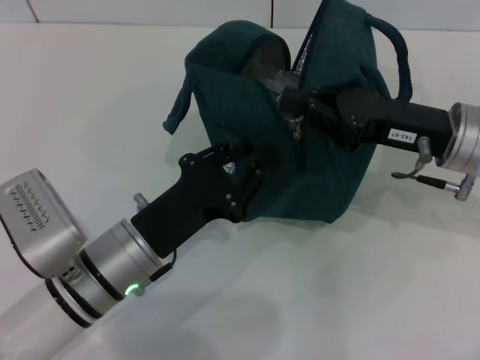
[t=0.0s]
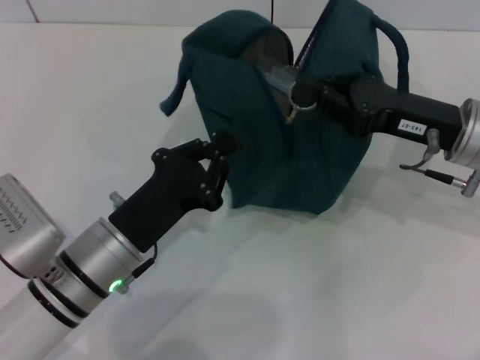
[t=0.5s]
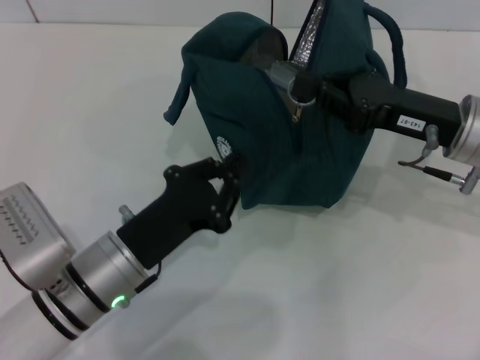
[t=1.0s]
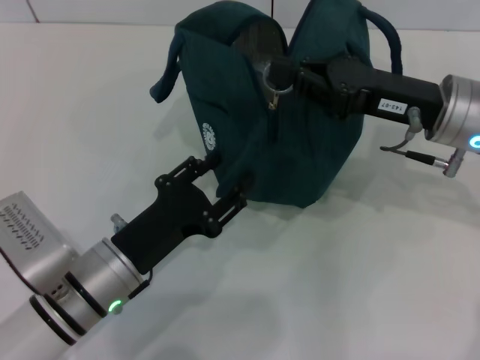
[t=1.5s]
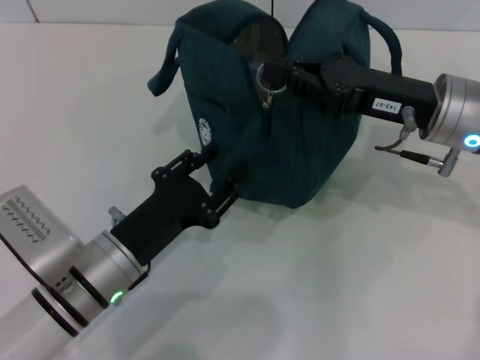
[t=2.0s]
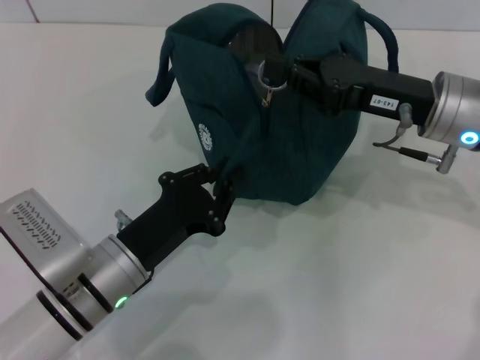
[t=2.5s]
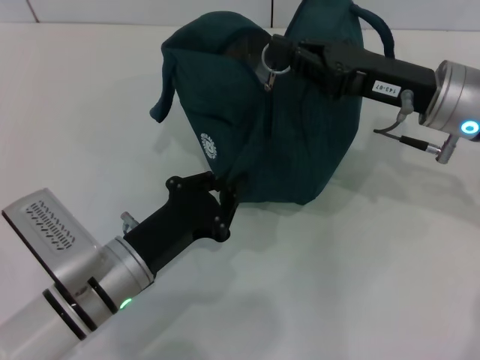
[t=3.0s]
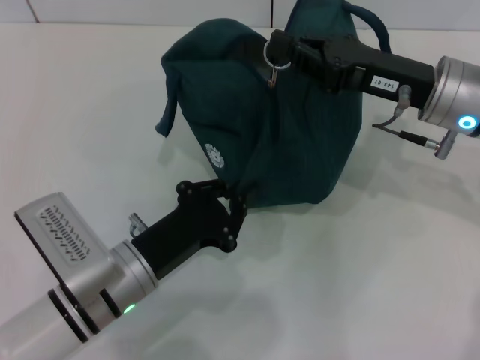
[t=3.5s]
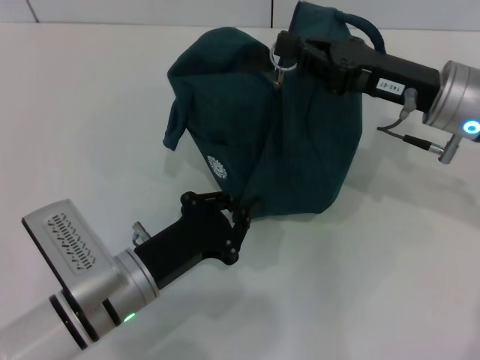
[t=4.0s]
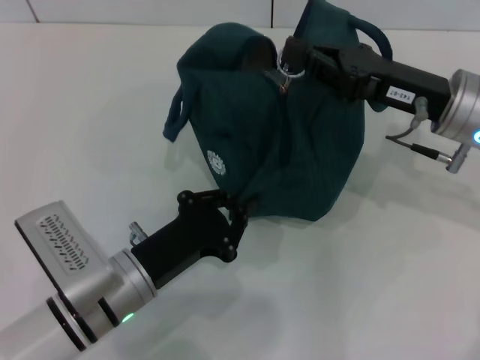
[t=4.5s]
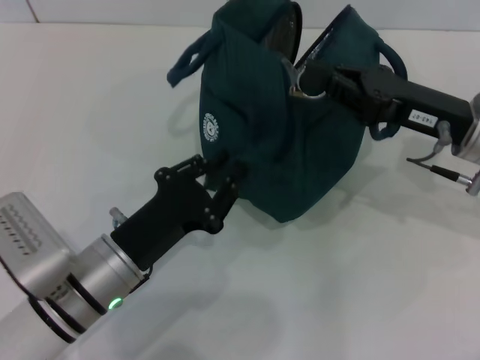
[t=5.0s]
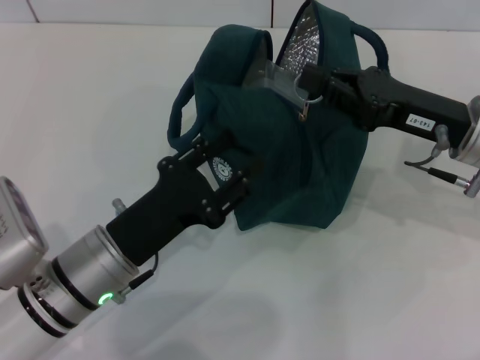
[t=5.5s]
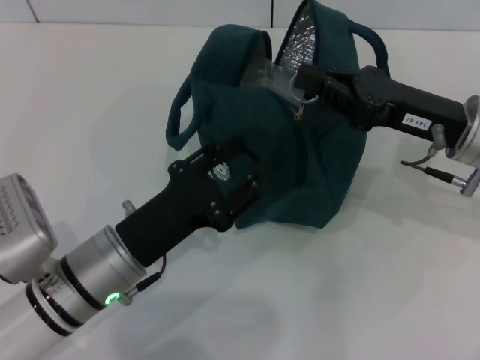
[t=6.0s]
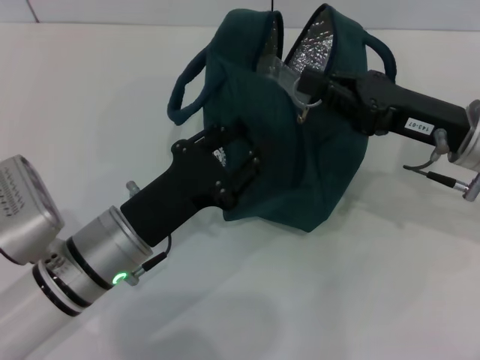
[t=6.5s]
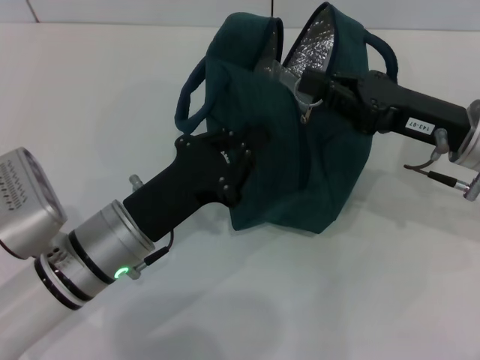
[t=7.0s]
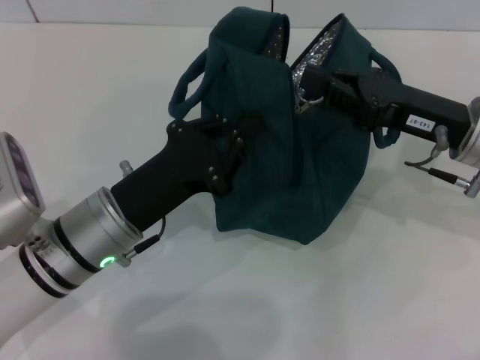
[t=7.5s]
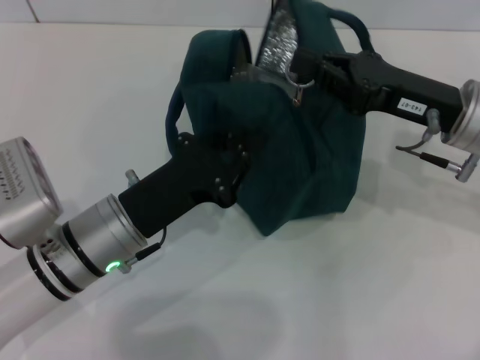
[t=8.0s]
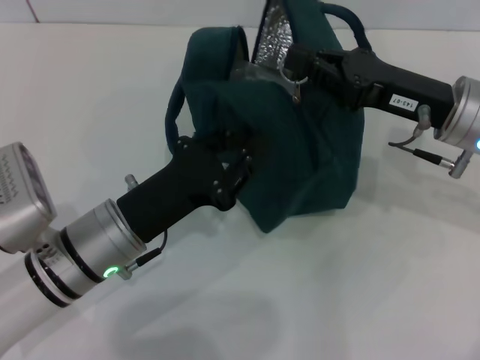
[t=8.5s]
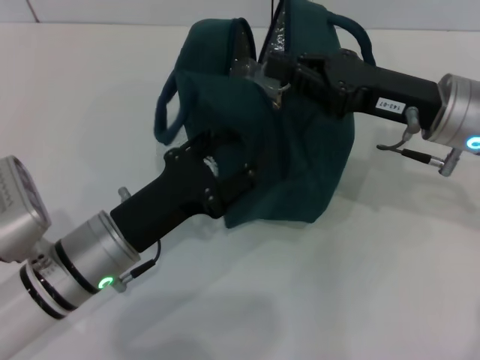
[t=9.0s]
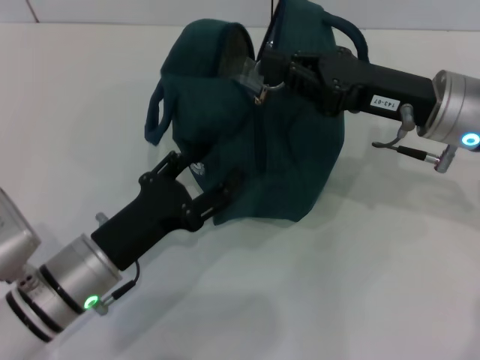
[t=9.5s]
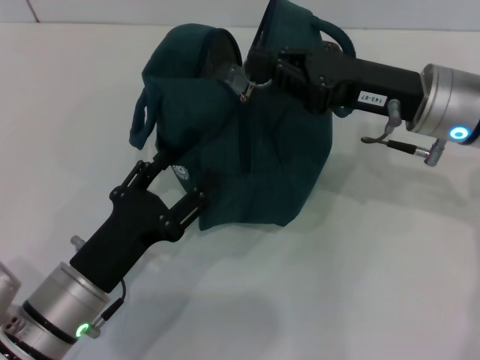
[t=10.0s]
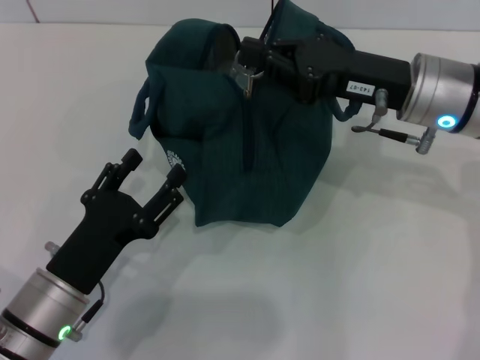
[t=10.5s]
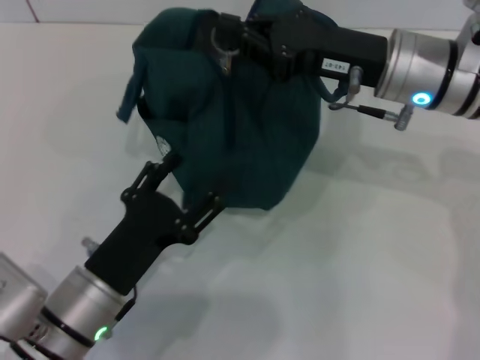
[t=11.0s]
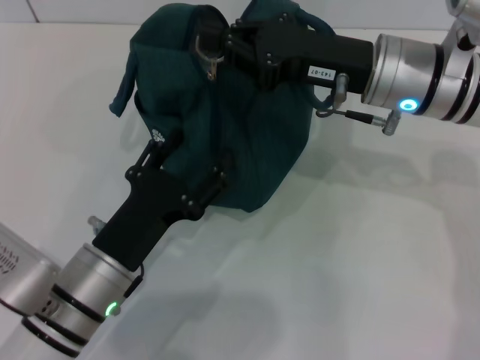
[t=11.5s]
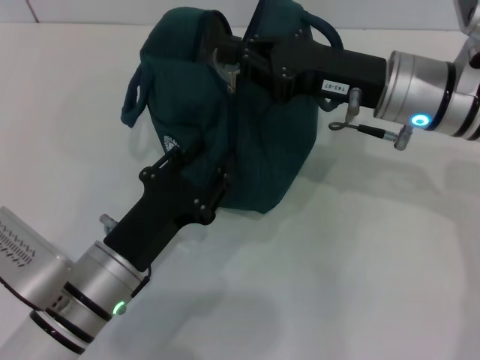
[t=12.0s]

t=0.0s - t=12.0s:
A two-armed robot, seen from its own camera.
t=0.0s - t=2.0s: The left gripper closes, then opens again.
t=2.0s - t=4.0s: The left gripper closes.
t=4.0s - t=6.0s: The left gripper opens its fingers.
t=6.0s - t=8.0s: The left gripper closes.
t=8.0s - t=10.0s: The left gripper shifts about 5 cm backward, and opens.

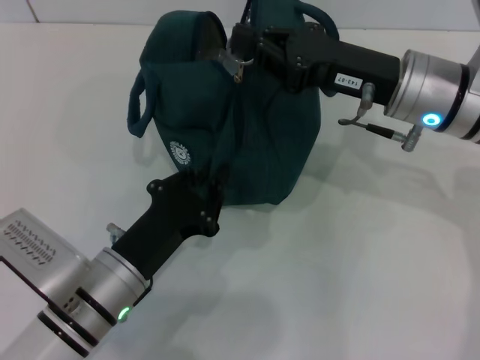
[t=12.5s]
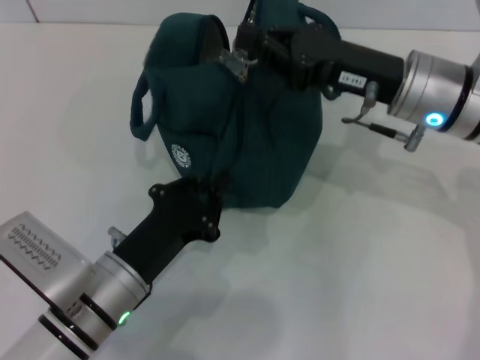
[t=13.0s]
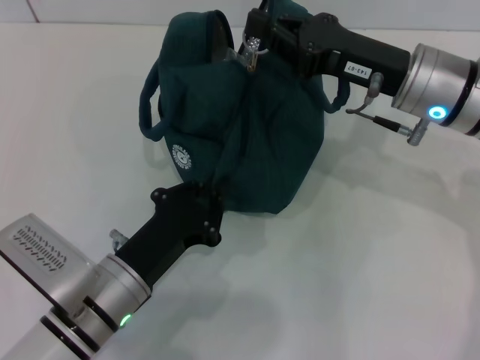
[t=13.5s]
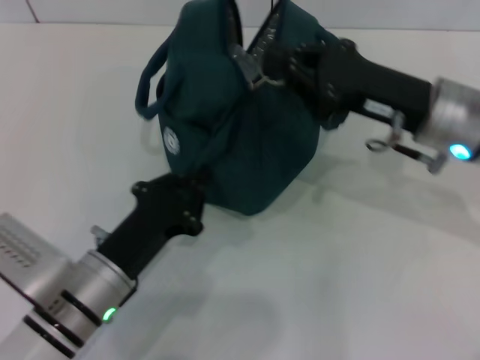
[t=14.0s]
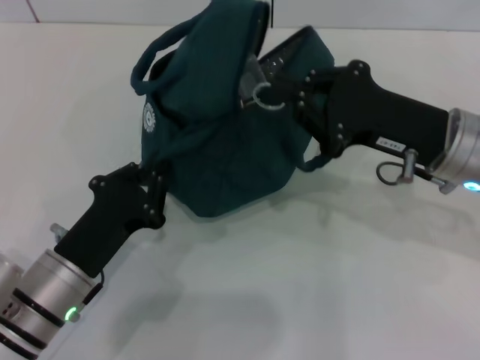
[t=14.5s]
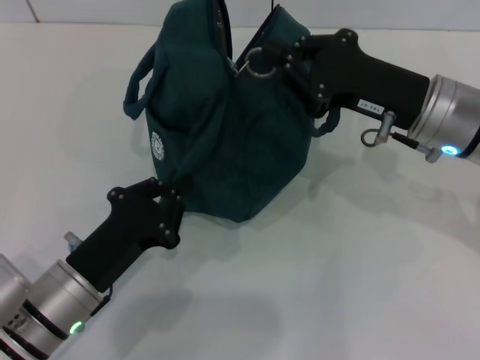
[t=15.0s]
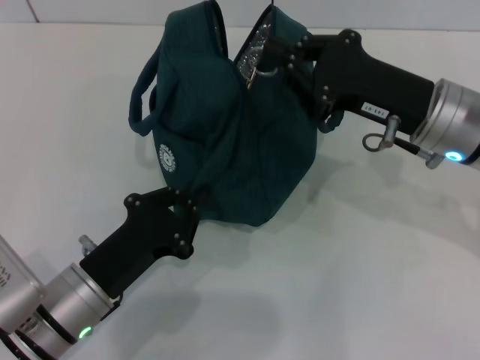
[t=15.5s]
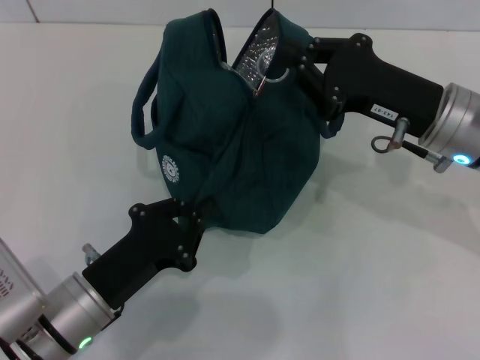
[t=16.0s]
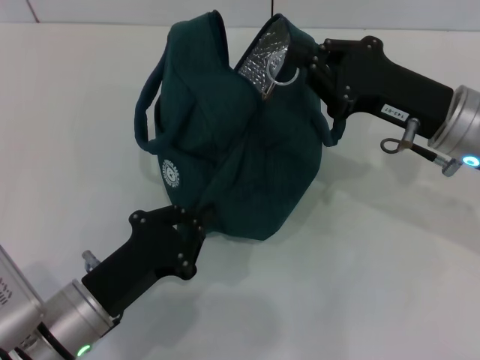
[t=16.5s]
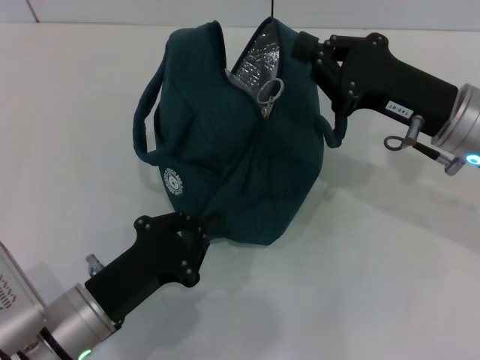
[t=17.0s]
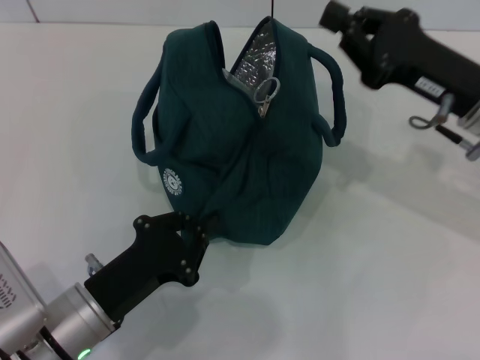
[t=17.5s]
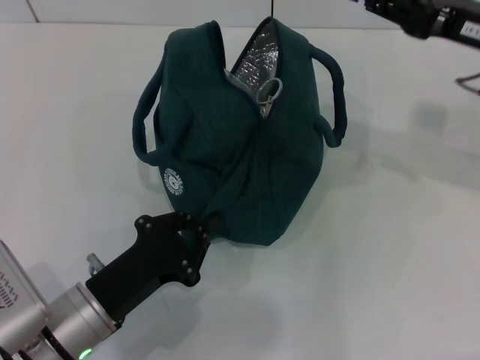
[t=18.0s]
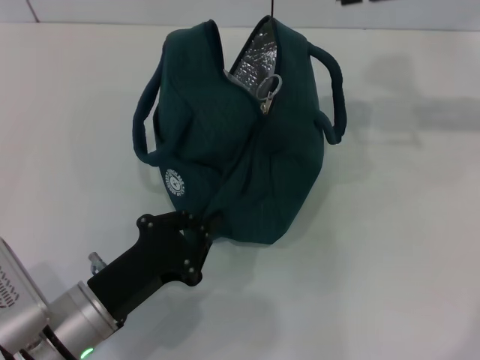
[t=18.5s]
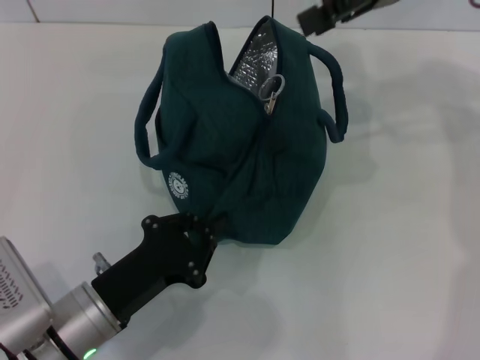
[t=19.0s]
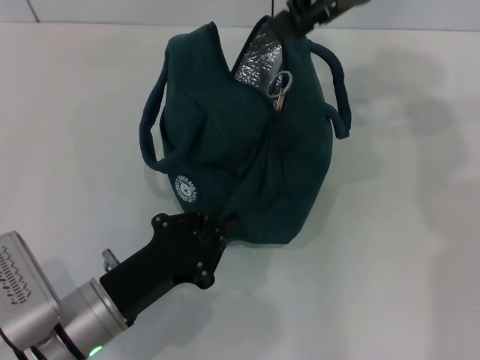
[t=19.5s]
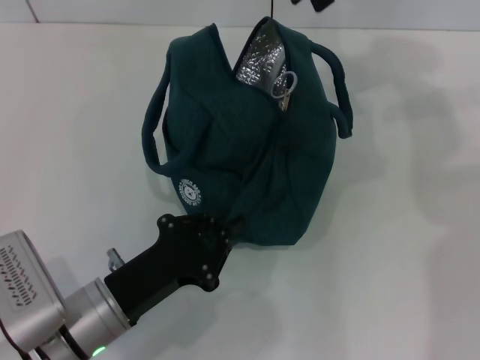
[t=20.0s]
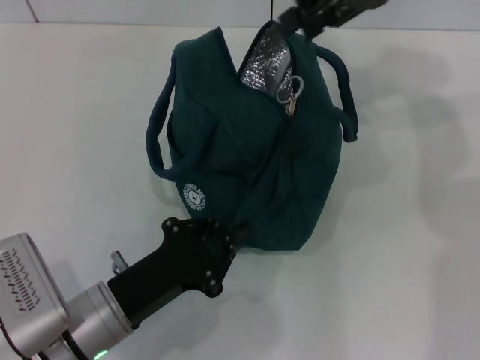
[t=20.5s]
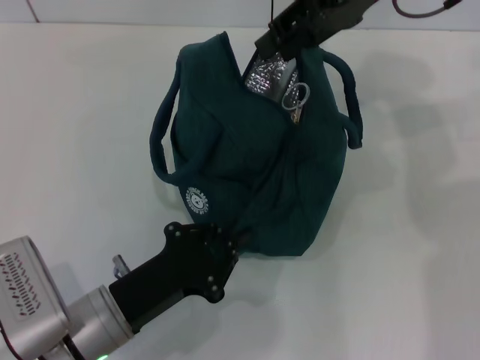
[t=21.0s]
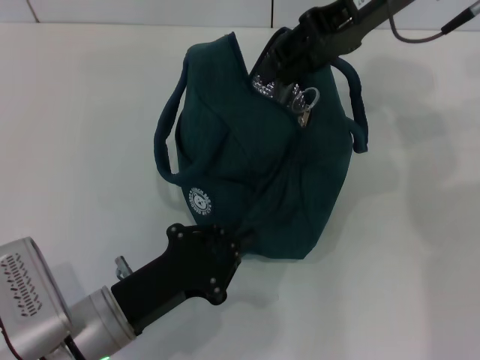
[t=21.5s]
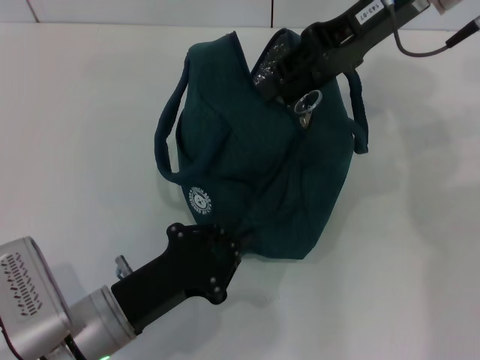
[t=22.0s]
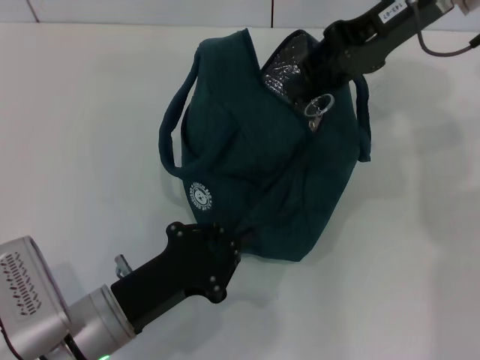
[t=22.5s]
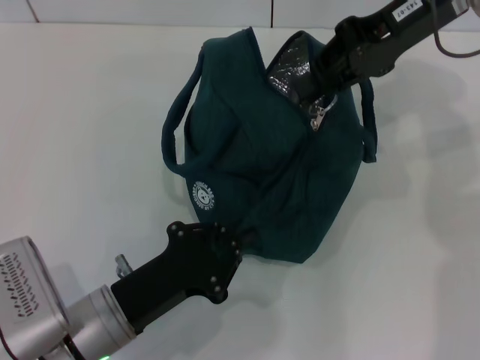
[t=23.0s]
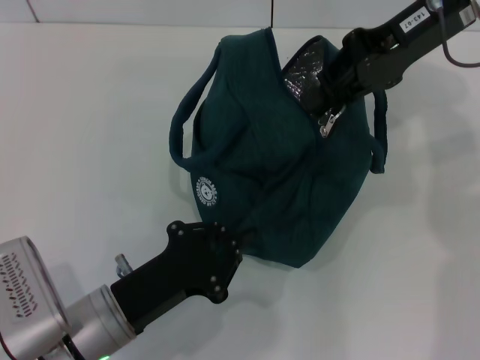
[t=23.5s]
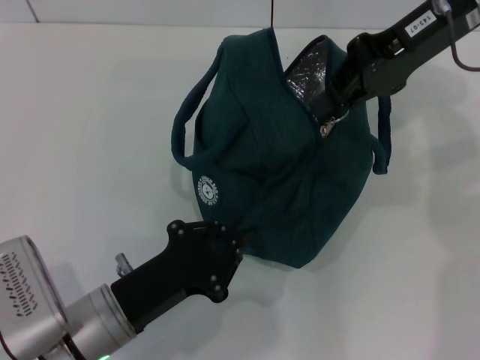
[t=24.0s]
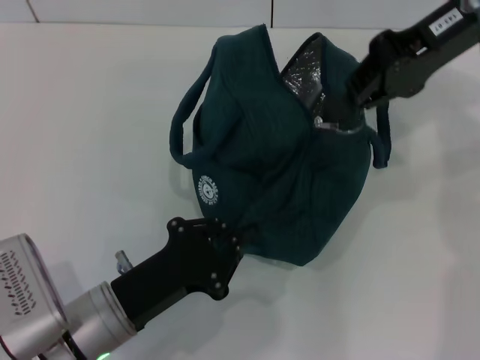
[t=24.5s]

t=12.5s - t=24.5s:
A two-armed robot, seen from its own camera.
t=12.5s - t=14.5s: The right gripper changes place by about 5 cm.
t=16.5s - t=18.5s: The right gripper shifts roughly 15 cm upward and forward, and opens.
t=18.5s - t=20.5s: The right gripper is displaced to the left by about 10 cm.
t=20.5s - t=22.5s: The grippers move only a little.
t=22.5s - t=24.5s: The right gripper closes its fingers.

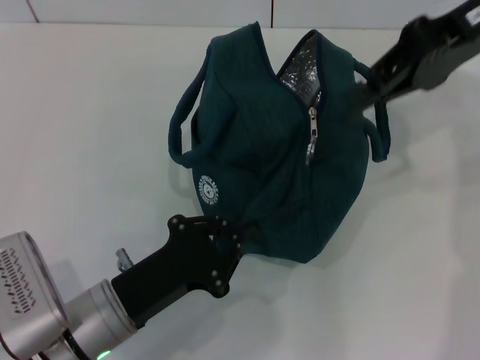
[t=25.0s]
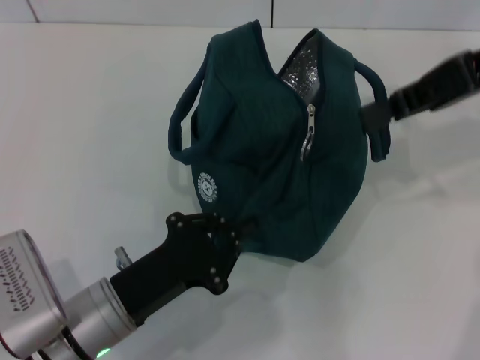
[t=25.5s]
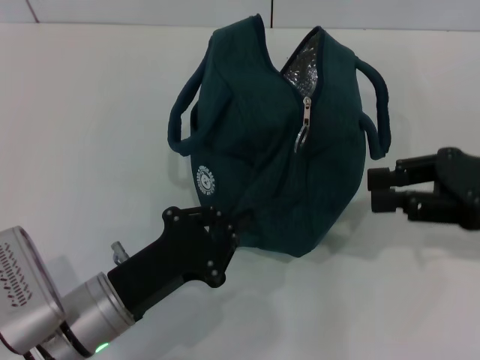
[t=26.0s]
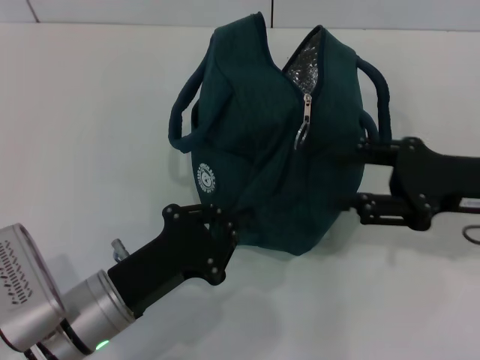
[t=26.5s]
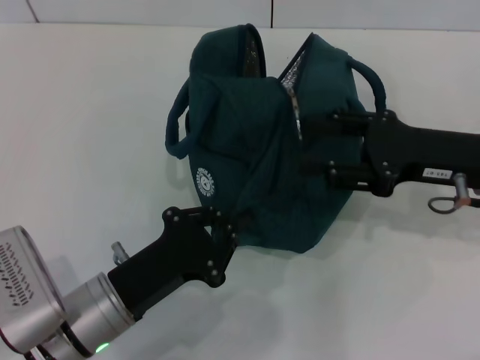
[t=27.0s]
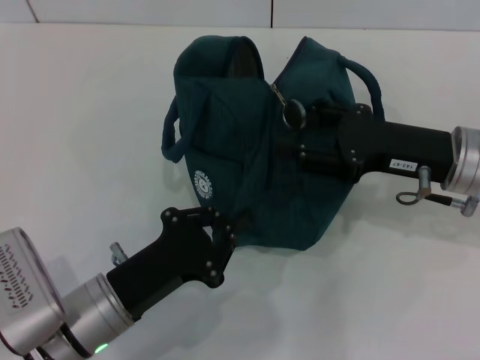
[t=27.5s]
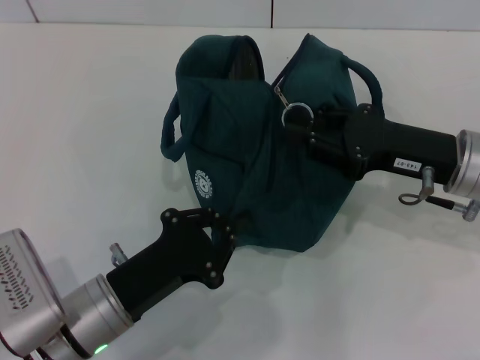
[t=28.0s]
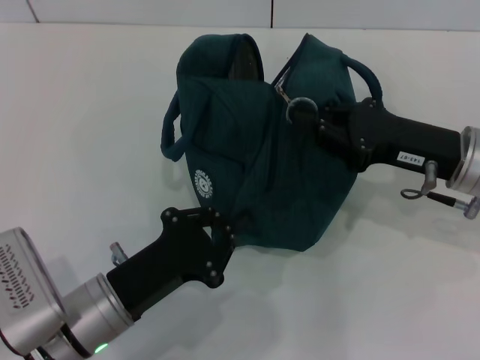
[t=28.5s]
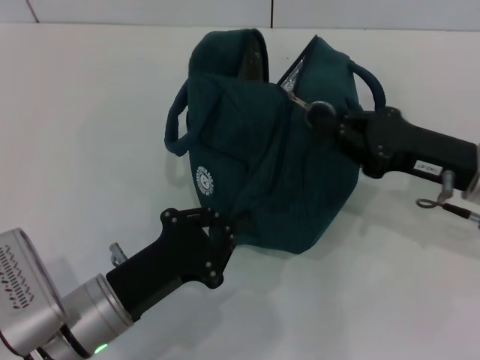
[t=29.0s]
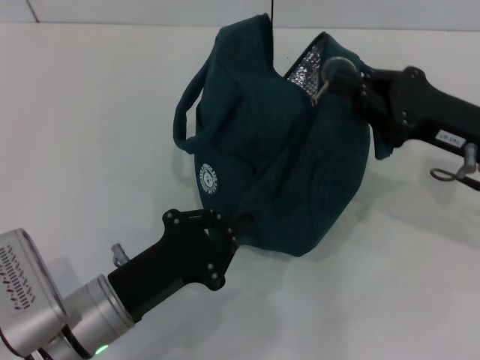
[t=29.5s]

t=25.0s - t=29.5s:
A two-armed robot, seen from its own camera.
t=25.0s - t=27.0s: The right gripper moves downward and backward, some 20 cm, and opens up.
t=27.0s - t=29.5s: The right gripper closes its fingers.
